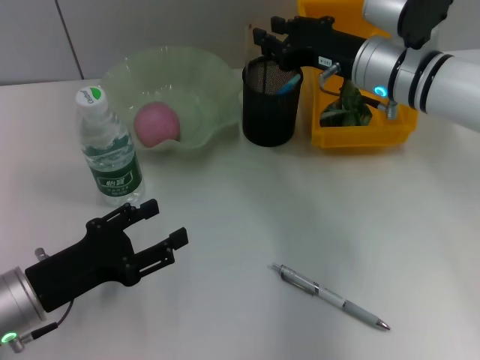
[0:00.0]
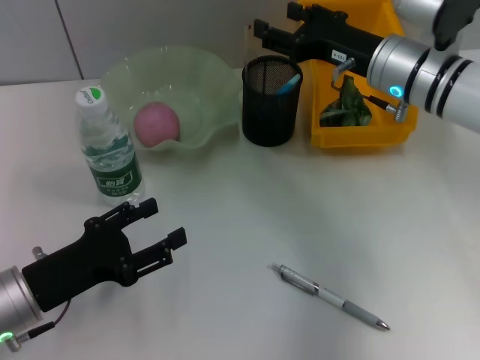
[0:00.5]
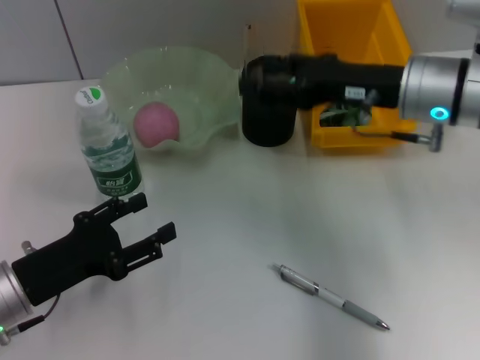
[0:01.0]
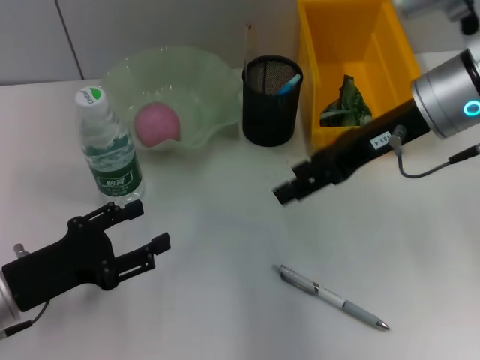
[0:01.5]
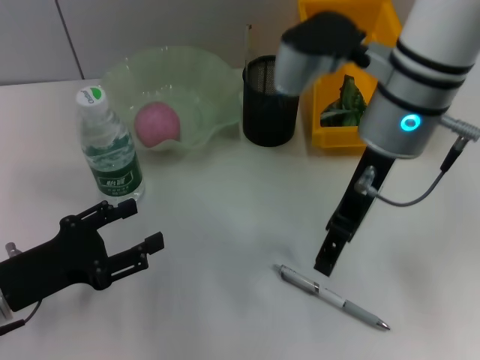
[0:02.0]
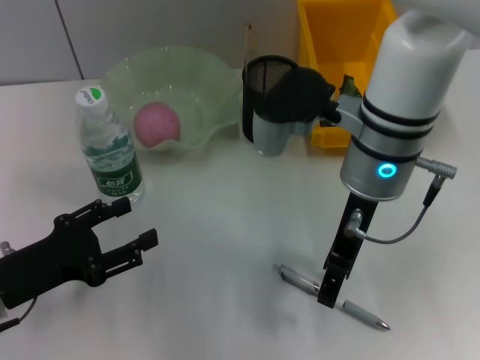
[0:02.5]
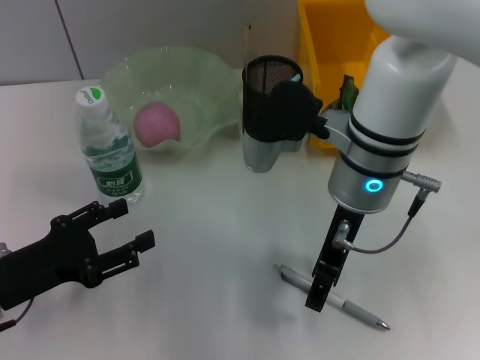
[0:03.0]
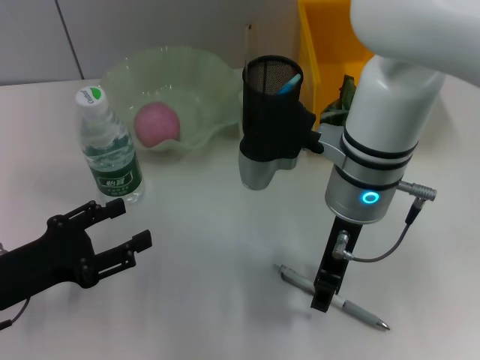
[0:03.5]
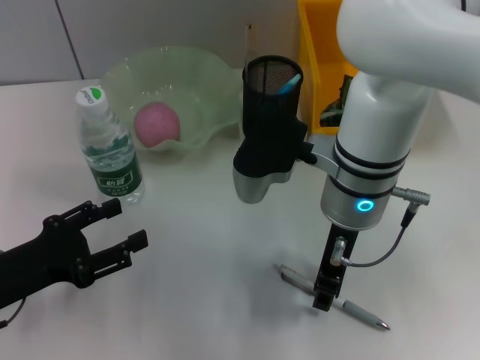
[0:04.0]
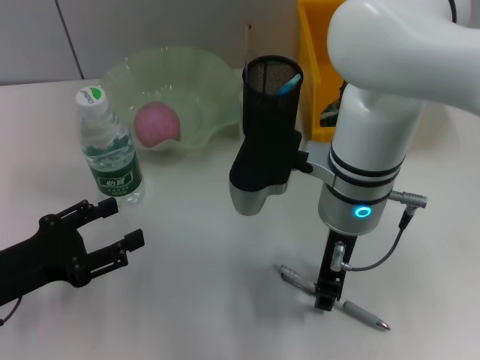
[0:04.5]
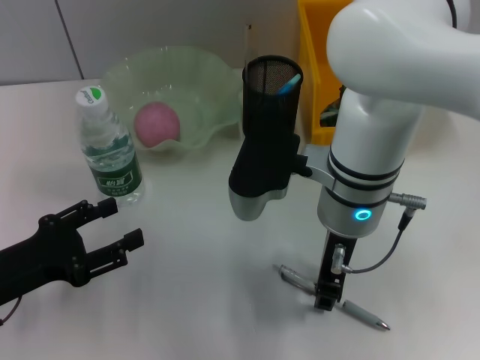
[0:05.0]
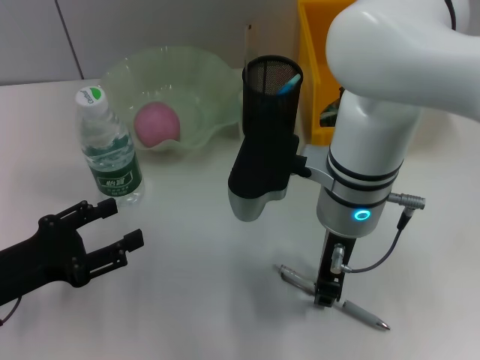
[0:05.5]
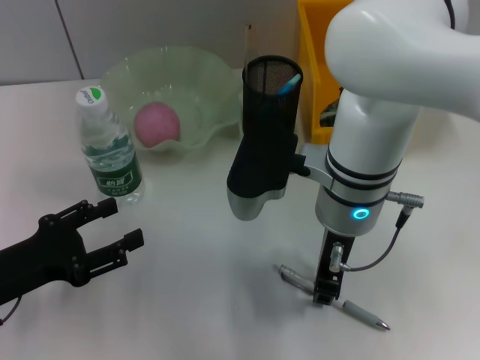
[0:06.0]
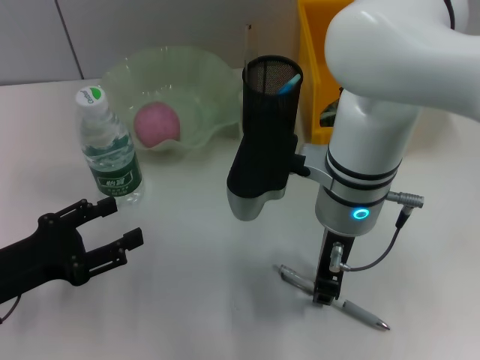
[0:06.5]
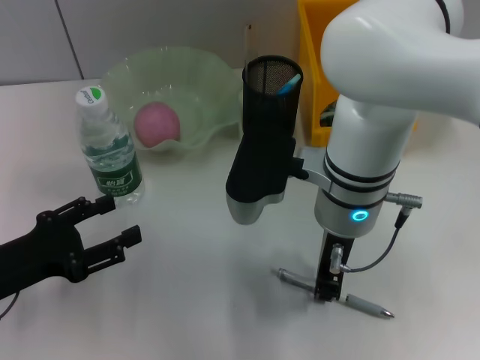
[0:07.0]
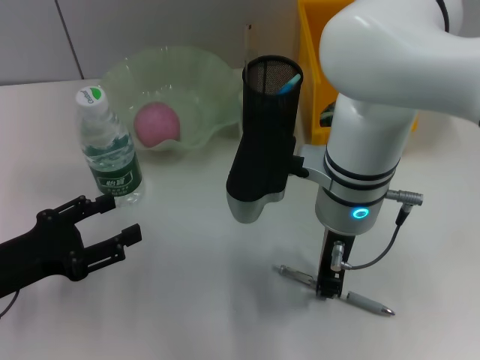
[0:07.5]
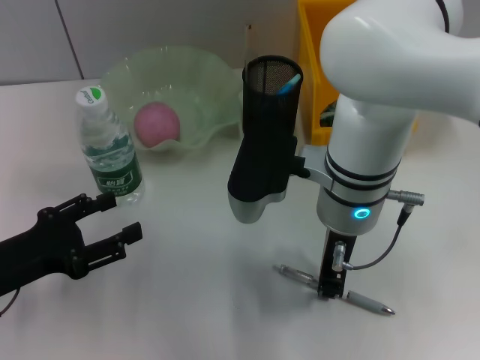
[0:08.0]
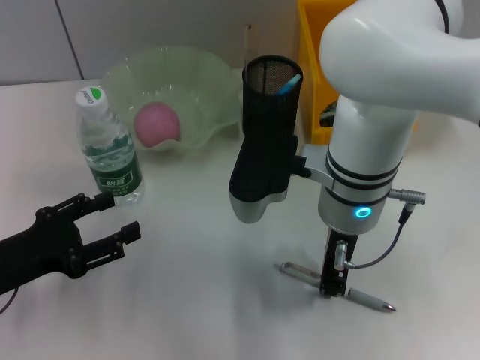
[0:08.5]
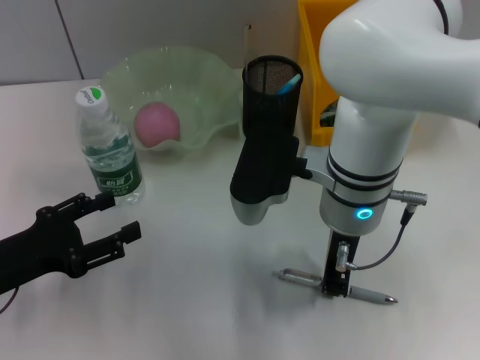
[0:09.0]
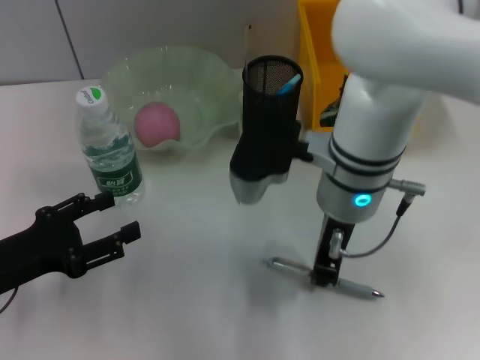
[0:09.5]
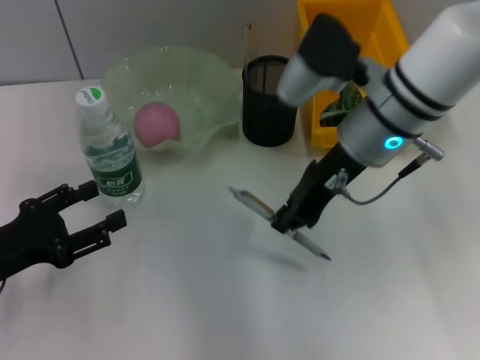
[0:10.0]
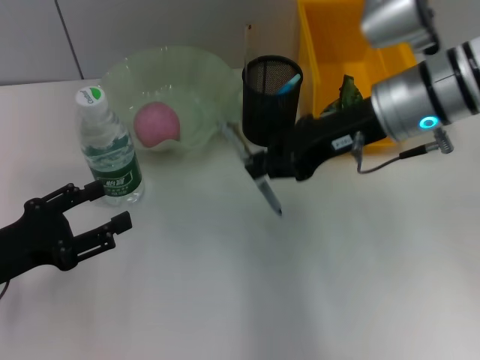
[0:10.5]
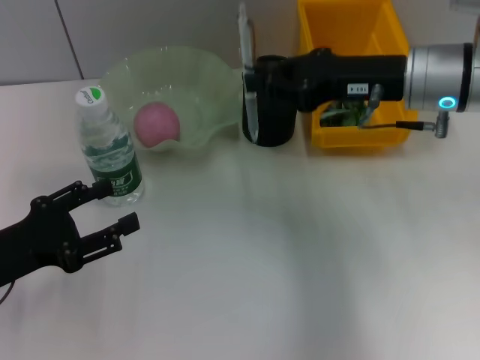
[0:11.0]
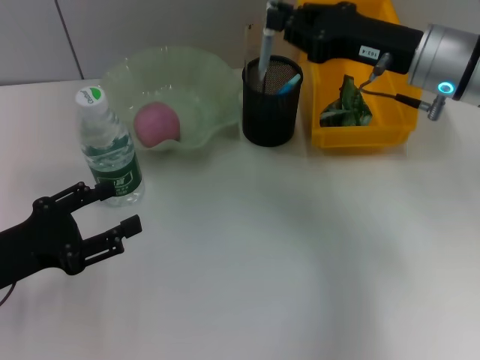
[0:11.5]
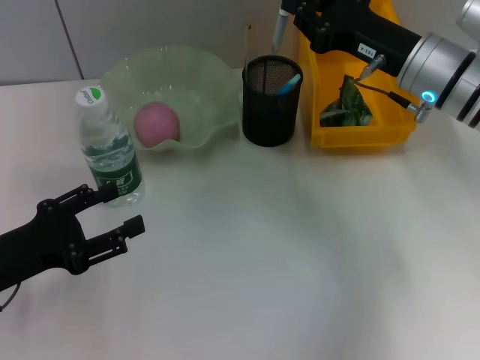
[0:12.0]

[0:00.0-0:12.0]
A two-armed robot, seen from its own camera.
Step, 0:00.5 to 0:09.0: Grab the gray spring-action pen with the right hand.
0:00.0 to 0:02.0: The right gripper travels upward, backward and to the left by about 10 cm, and opens up.
0:02.0 to 0:04.0: The right gripper travels downward by approximately 5 cm.
0:04.0 to 0:06.0: The grippers move only a little.
0:06.0 to 0:08.0: Both grippers stay put.
0:08.0 to 0:10.0: The right gripper travels to the right by approximately 5 cm.
0:10.0 to 0:12.0: The right gripper shifts roughly 10 cm to the right.

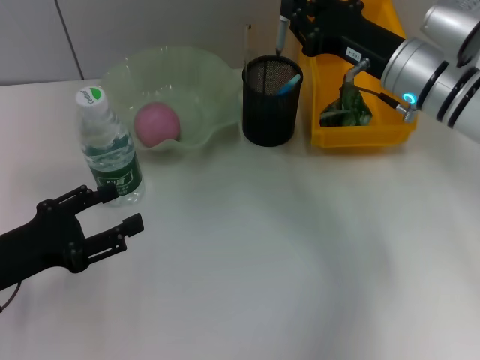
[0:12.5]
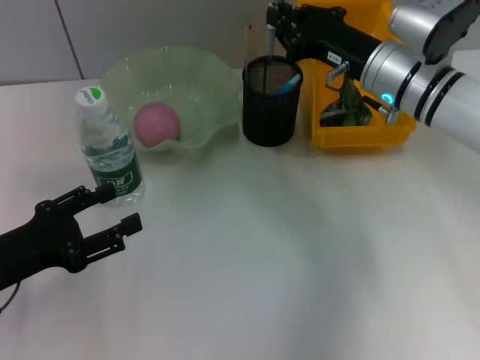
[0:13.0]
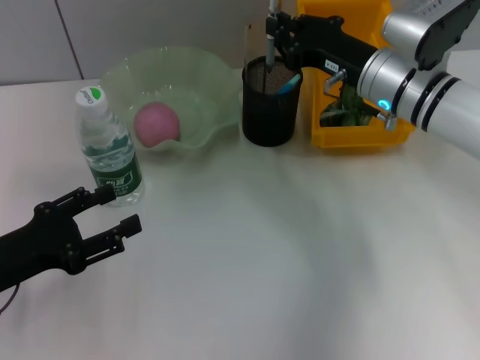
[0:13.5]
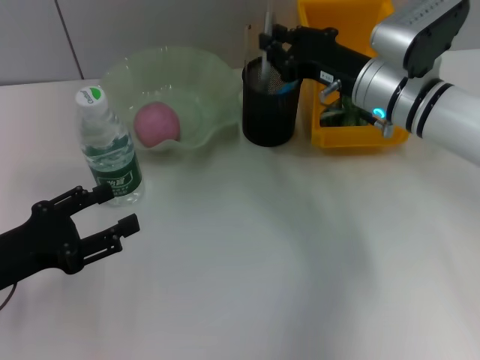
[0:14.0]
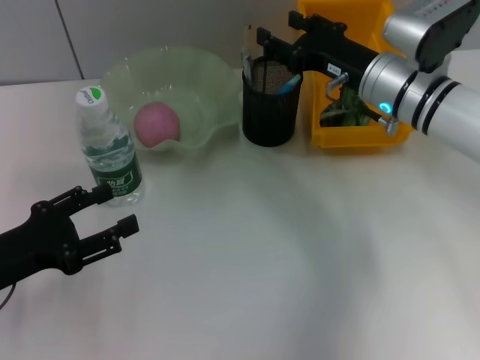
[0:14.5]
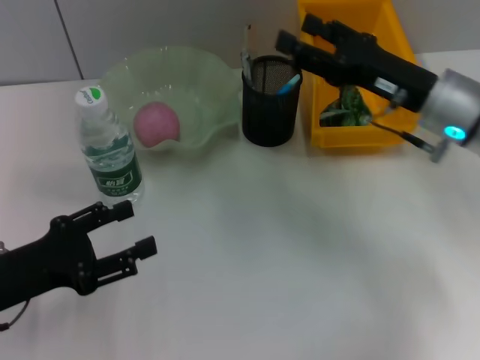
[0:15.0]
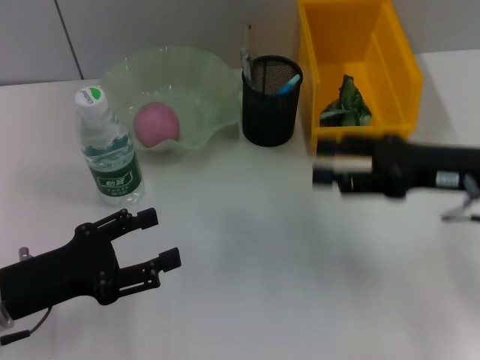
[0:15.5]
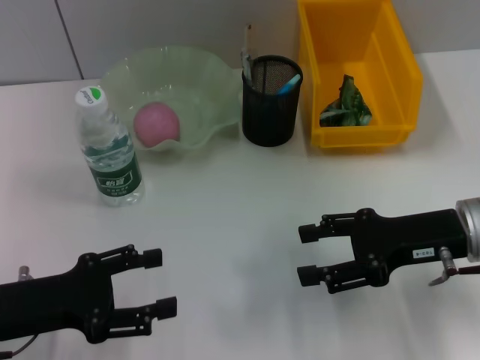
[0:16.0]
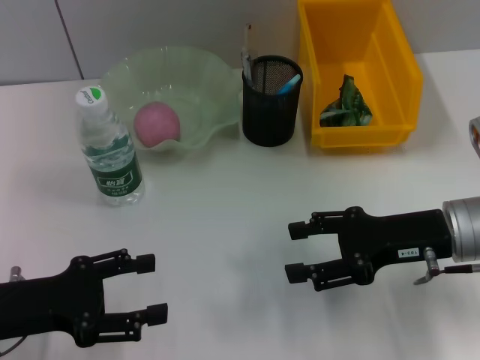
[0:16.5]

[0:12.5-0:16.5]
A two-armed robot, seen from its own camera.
0:12.5 to 0:14.5: The right gripper opens.
0:14.5 to 0:16.5: The right gripper shifts approximately 15 cm backward and to the right.
